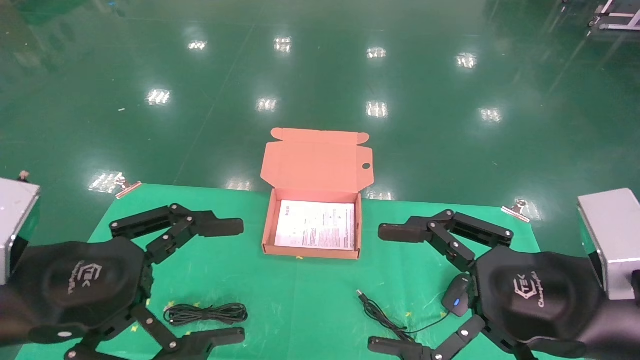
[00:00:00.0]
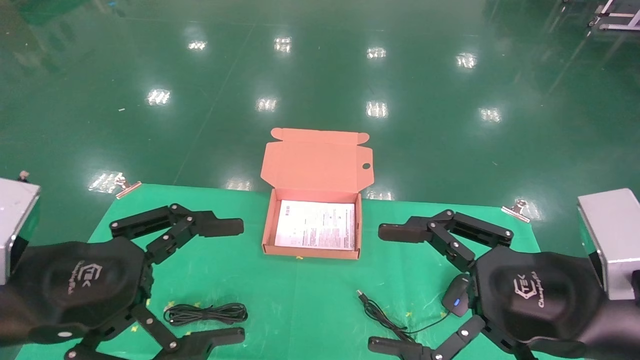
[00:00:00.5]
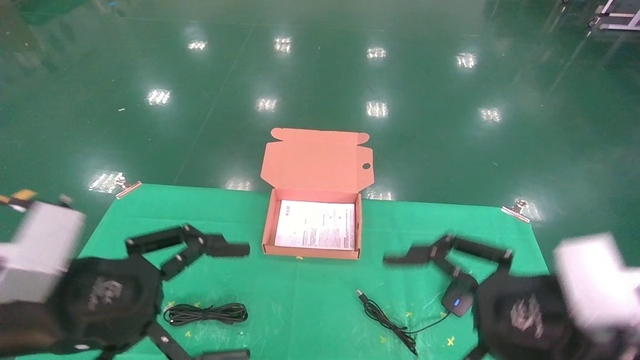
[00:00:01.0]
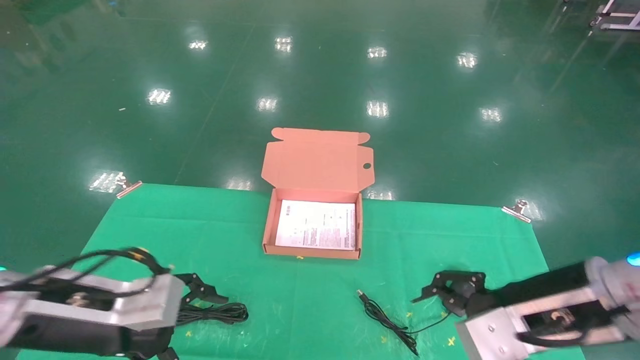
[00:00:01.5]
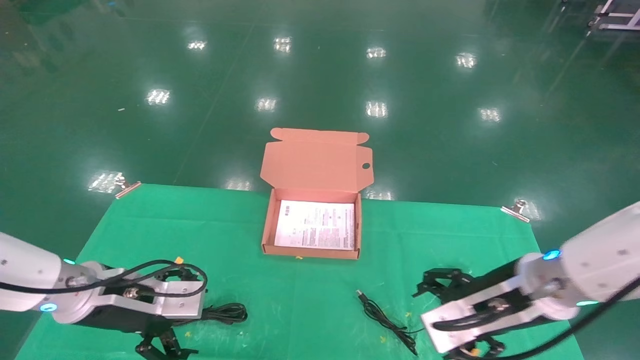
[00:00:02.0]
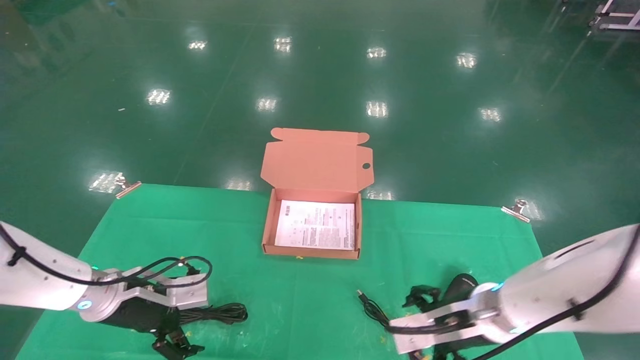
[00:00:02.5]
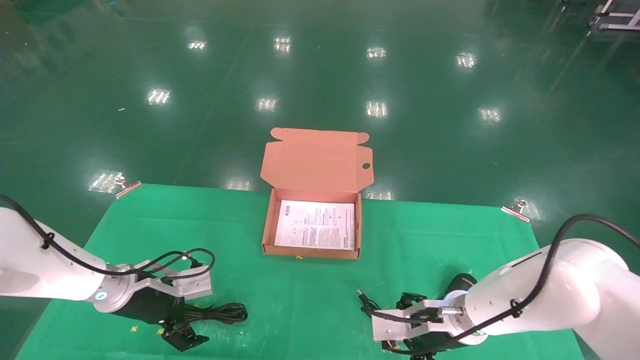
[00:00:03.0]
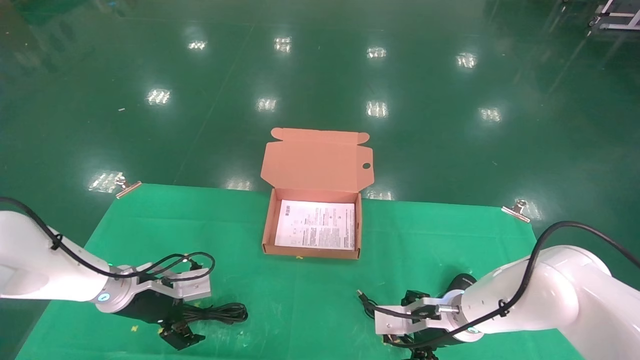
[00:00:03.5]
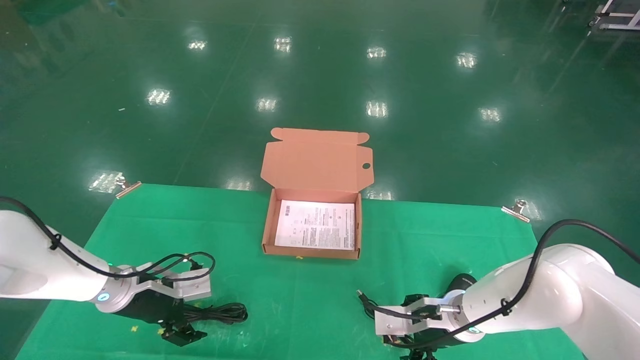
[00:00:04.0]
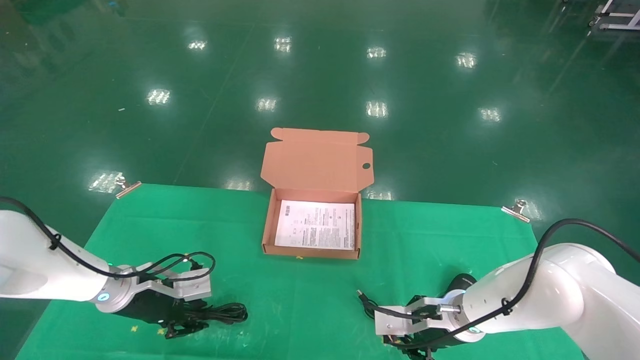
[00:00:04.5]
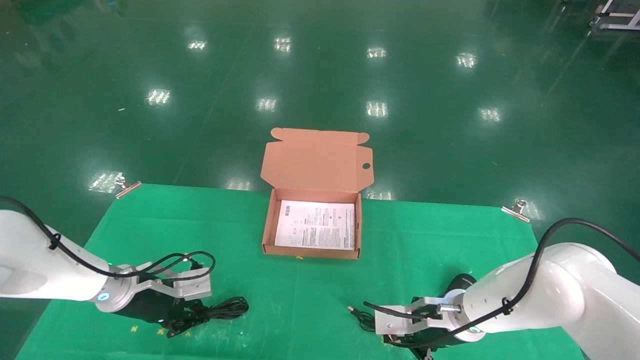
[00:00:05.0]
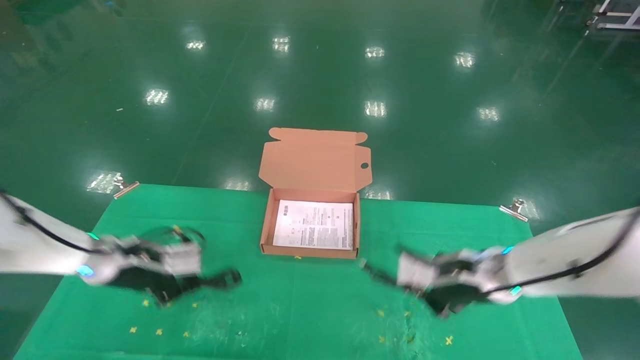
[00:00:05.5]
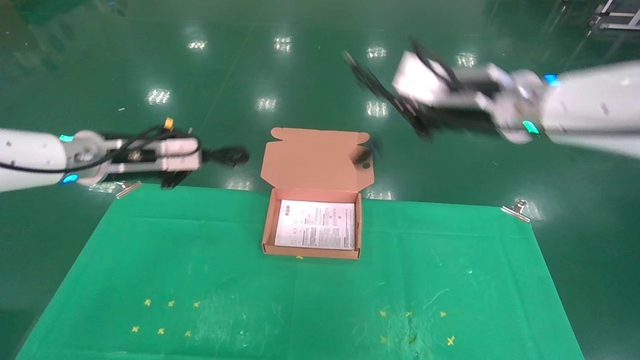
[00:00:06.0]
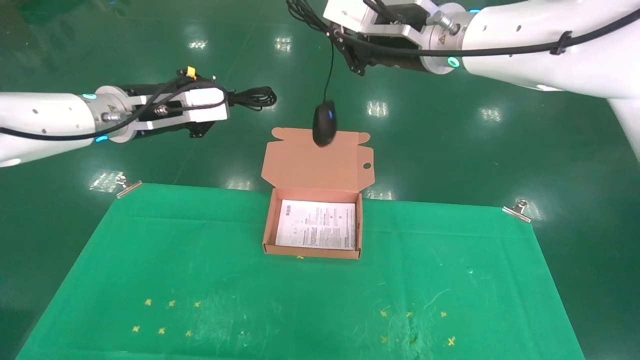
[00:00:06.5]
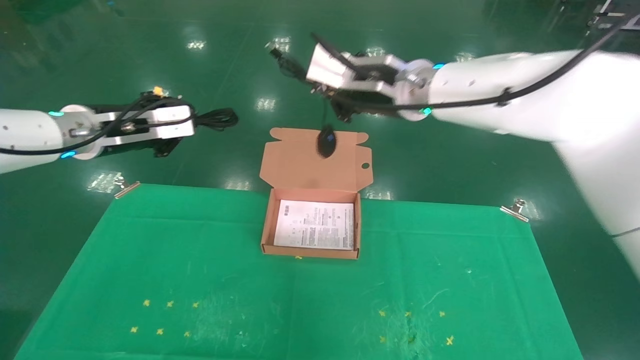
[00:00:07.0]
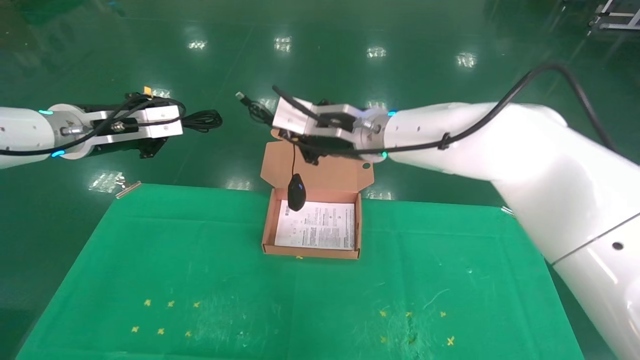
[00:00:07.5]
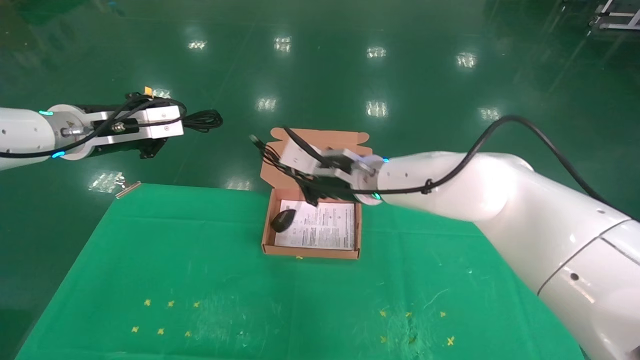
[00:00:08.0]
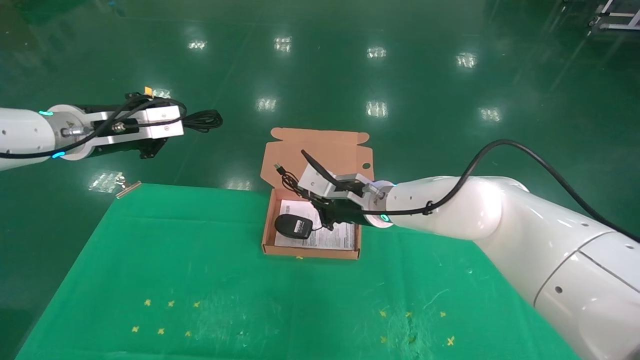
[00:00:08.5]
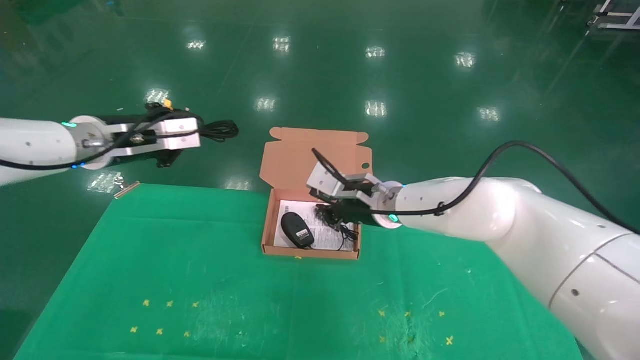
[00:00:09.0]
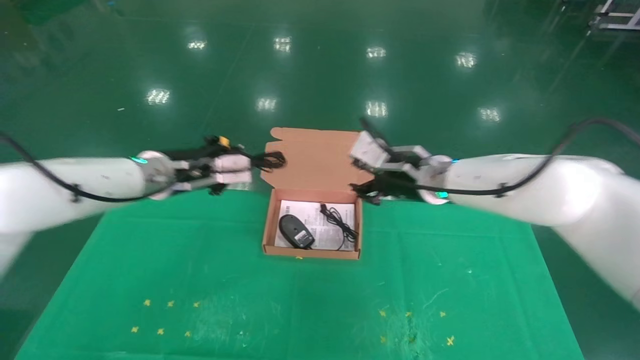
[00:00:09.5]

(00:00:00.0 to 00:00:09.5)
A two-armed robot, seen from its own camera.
Task of the whole recording: grasp data cable left put into box grasp mouse right put into box.
Step, 00:00:01.5 - 00:00:05.5: Grab and pick up both the mouse and power cord from the accessory packaging area at the same time.
00:00:00.0 - 00:00:02.0: The two grippers go some 15 cm forward and downward.
00:00:02.0 - 00:00:04.0: The left gripper is displaced forward and downward by roughly 10 cm. The right gripper moves downward and forward, about 15 cm.
00:00:04.0 - 00:00:05.5: Both grippers move upward, about 10 cm. The right gripper closes. Meanwhile the left gripper closes up.
00:00:05.5 - 00:00:07.5: The right gripper heads to the left and upward, covering roughly 25 cm. Meanwhile the left gripper travels upward by about 15 cm.
00:00:07.5 - 00:00:09.5: The two grippers go some 10 cm to the right and downward. The right gripper opens.

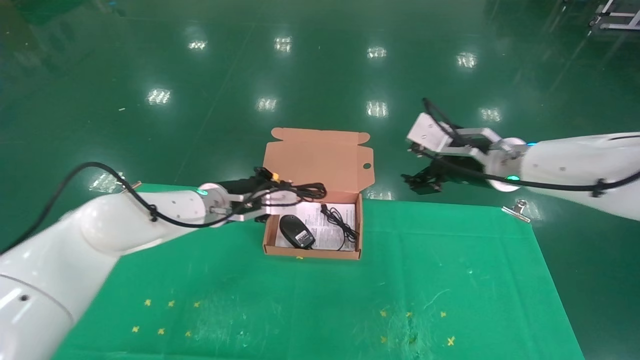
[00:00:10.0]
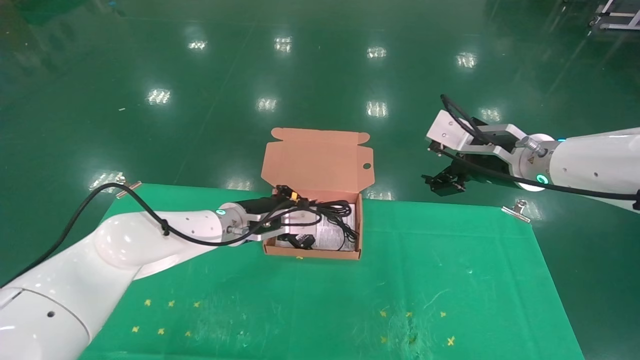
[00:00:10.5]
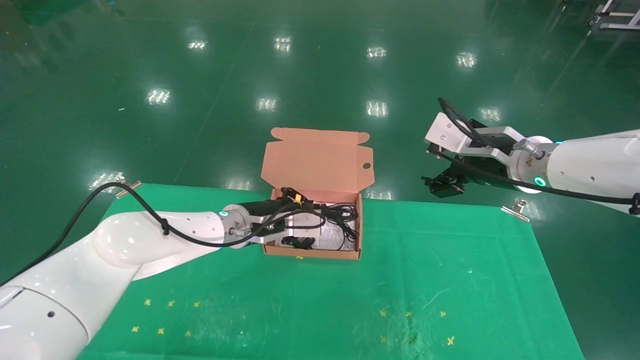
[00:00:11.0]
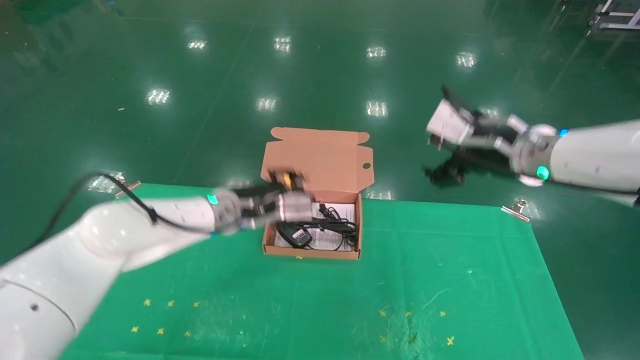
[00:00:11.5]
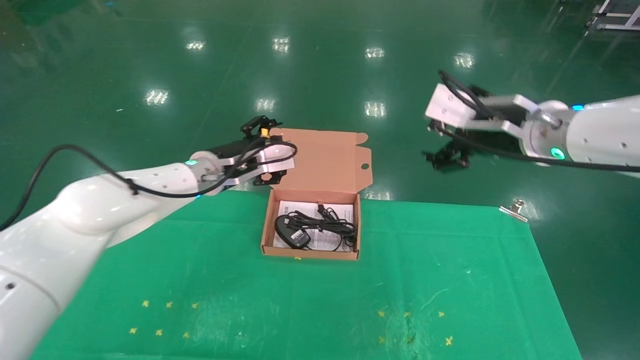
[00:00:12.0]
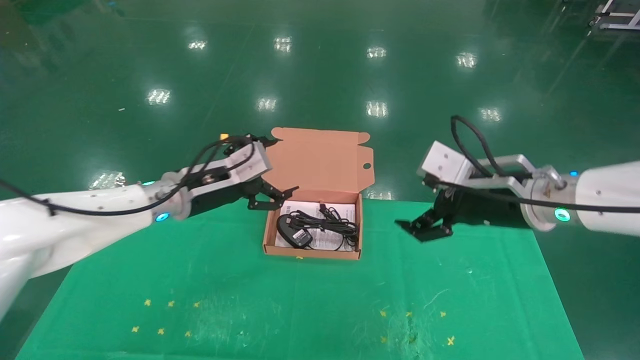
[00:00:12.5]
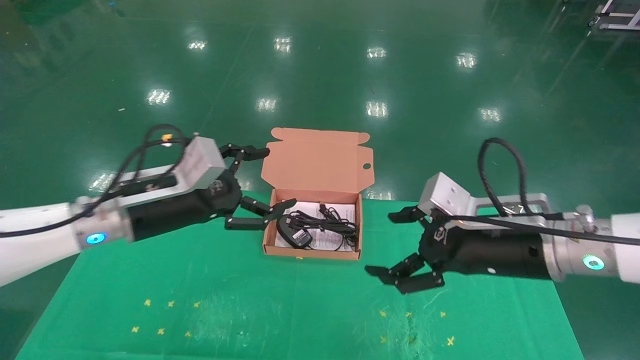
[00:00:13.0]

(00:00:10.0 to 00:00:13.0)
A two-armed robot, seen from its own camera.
Task of the whole recording: grasp data cable left put into box grasp mouse right put into box.
00:00:10.0 - 00:00:11.5: The grippers move only a little.
00:00:11.5 - 00:00:13.0: The right gripper shifts roughly 10 cm downward and backward, while the left gripper heads backward and to the left, covering some 15 cm, and opens.
